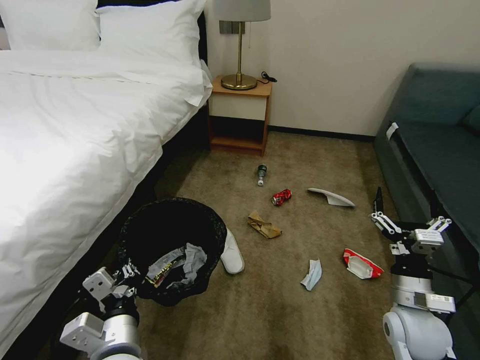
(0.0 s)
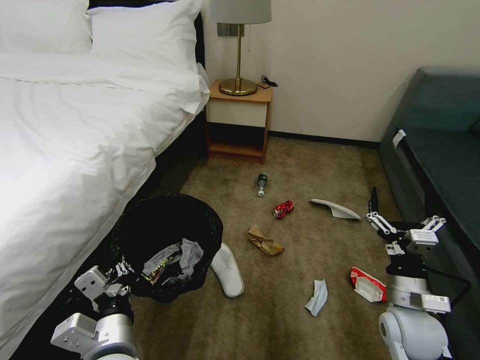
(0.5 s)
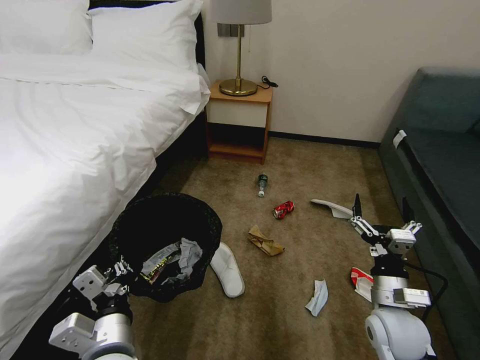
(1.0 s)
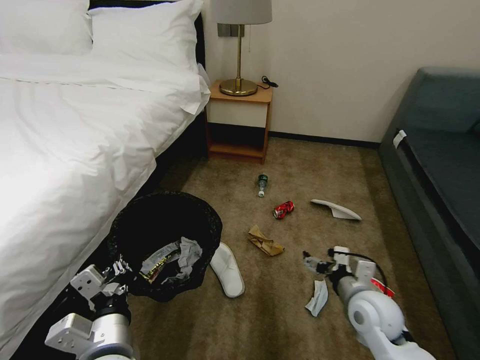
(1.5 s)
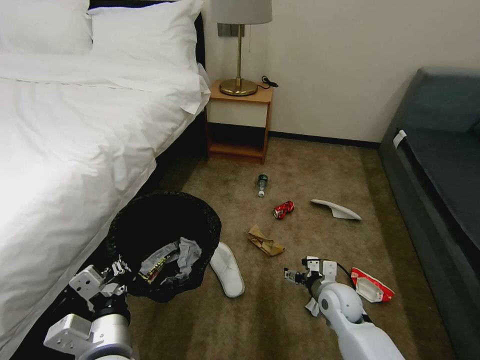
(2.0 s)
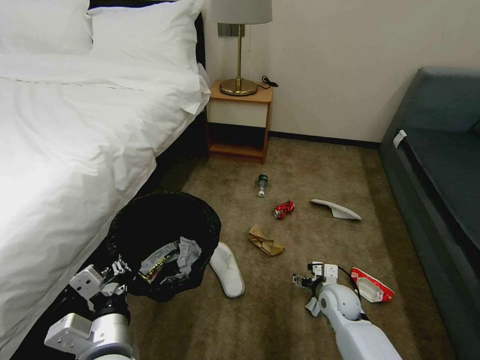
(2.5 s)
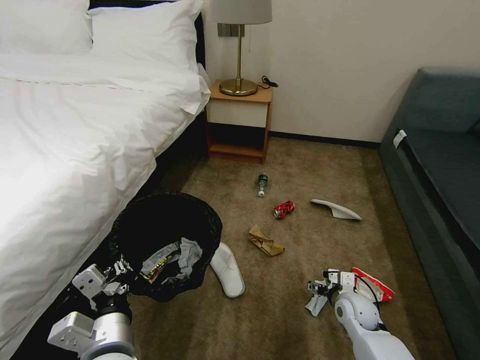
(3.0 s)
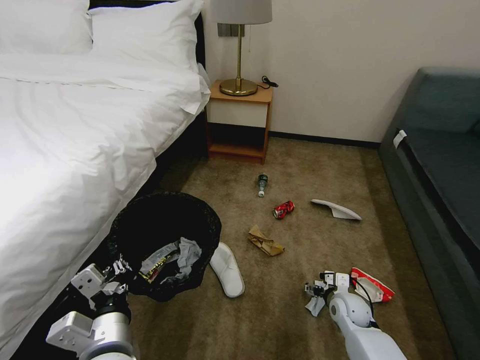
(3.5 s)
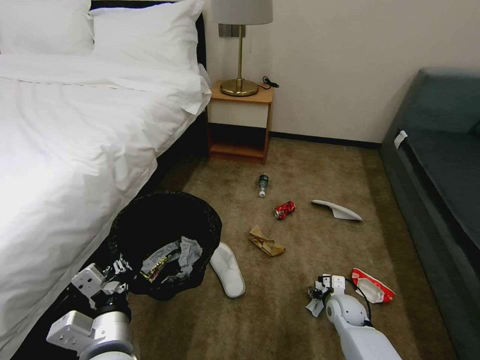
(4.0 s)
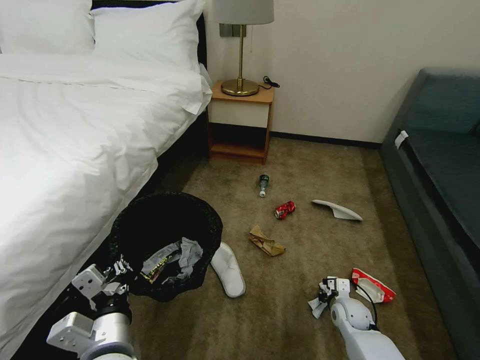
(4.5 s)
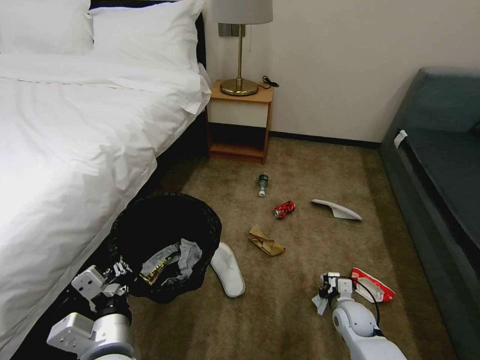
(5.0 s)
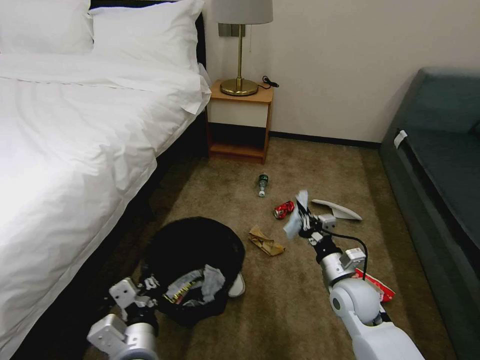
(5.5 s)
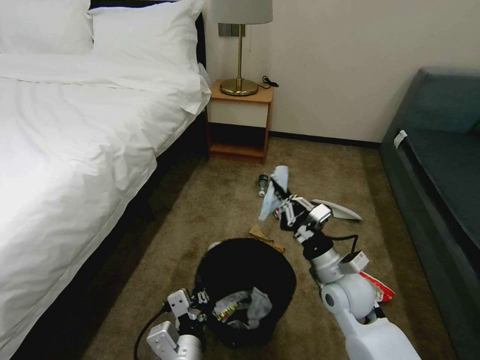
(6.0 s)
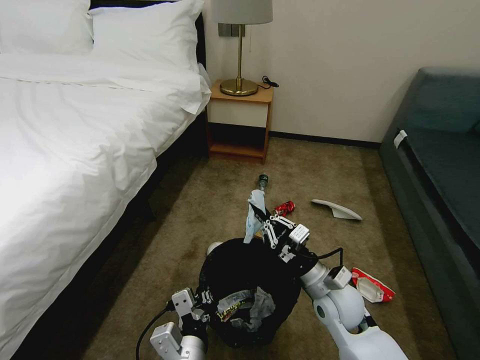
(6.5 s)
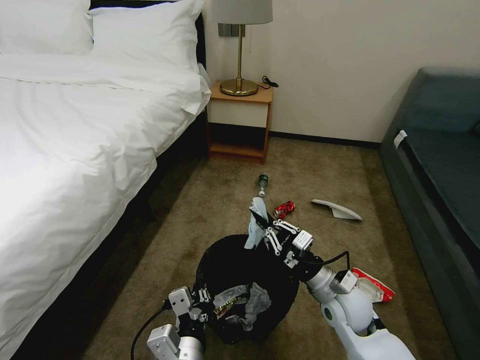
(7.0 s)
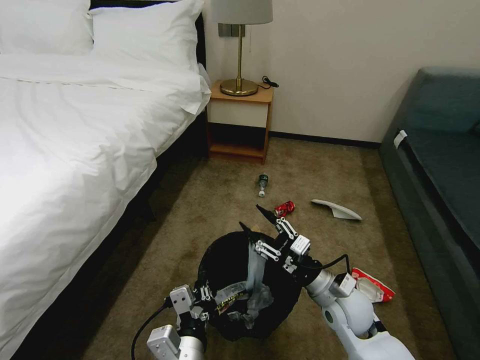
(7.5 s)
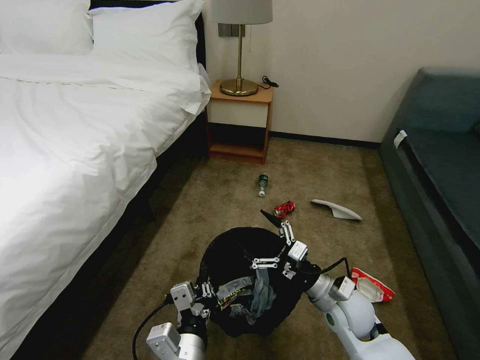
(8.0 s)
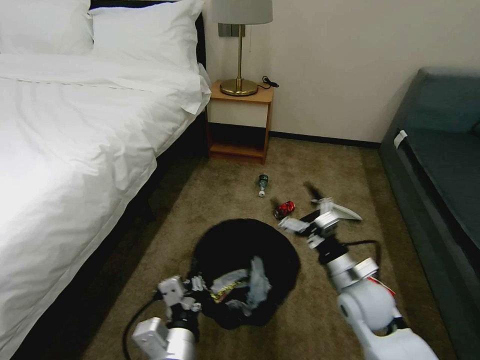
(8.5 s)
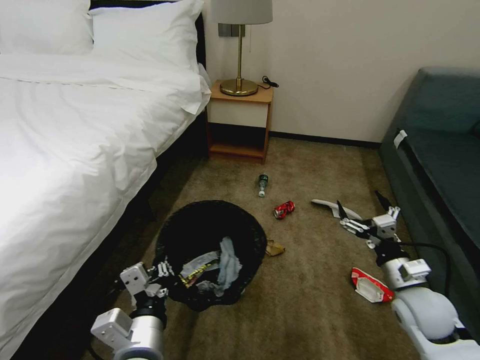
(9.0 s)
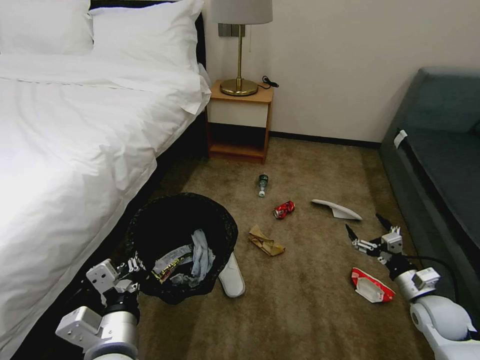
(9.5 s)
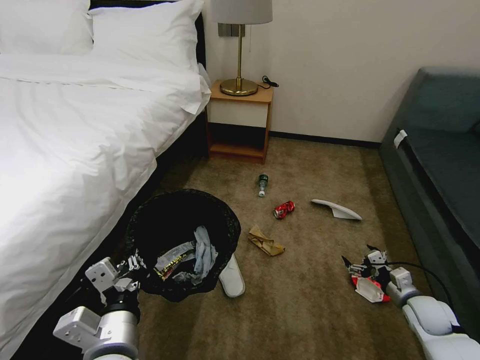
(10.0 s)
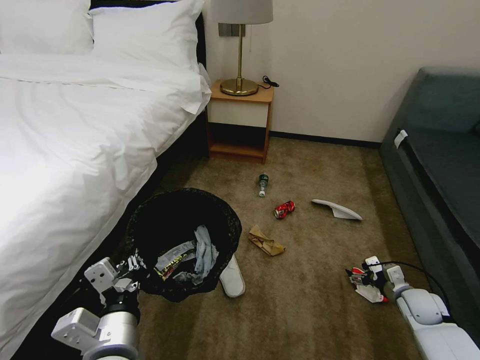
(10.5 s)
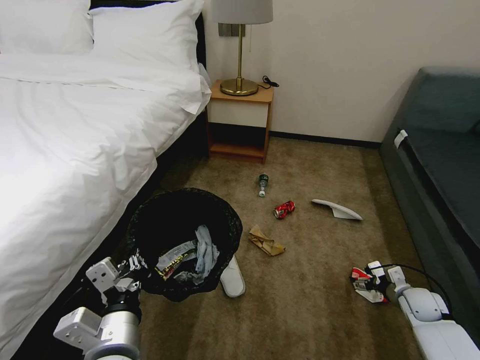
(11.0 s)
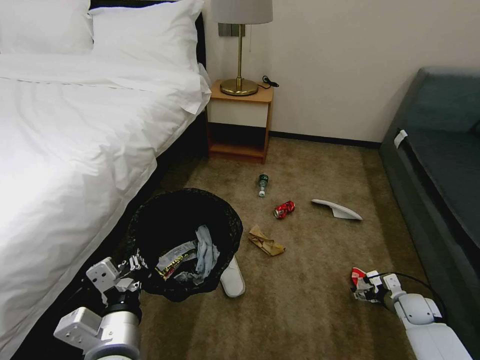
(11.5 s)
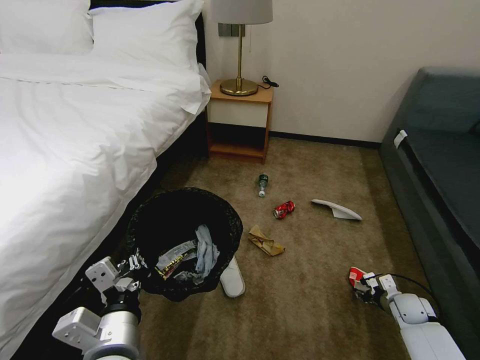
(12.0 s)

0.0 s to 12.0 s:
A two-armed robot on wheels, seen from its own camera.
Task of the whole recording: Pick up the trash bin, then pick up the garbage on the floor and place it into the trash bin.
0.0 to 2.0 s: The right gripper is displaced downward, to the left and forward by about 15 cm.
2.0 to 4.0 s: The right gripper heads downward and to the right, covering some 10 cm.
4.0 to 6.0 s: The right gripper goes about 20 cm upward, and closes. The left gripper goes roughly 10 cm to the right and downward.
6.0 to 8.0 s: The right gripper changes place by approximately 5 cm, and opens its fingers, while the left gripper closes.
8.0 to 10.0 s: The left gripper moves to the left and upward, roughly 10 cm. Meanwhile the right gripper travels to the right by approximately 25 cm.
10.0 to 12.0 s: The right gripper moves downward, about 5 cm, and closes up.

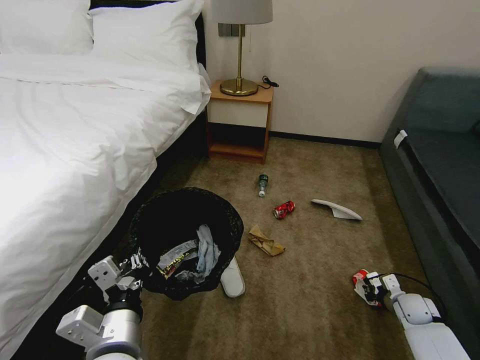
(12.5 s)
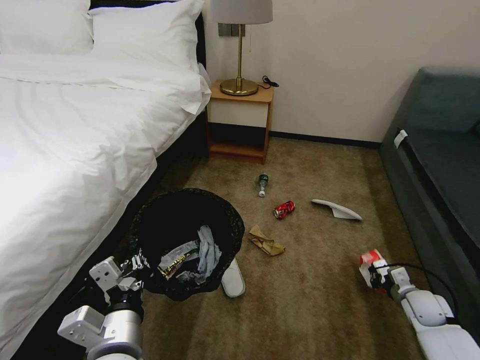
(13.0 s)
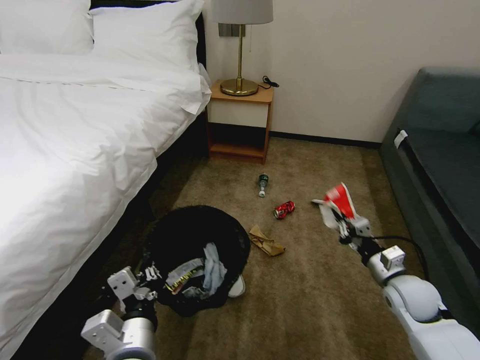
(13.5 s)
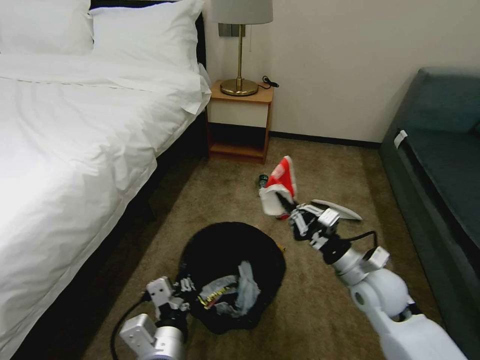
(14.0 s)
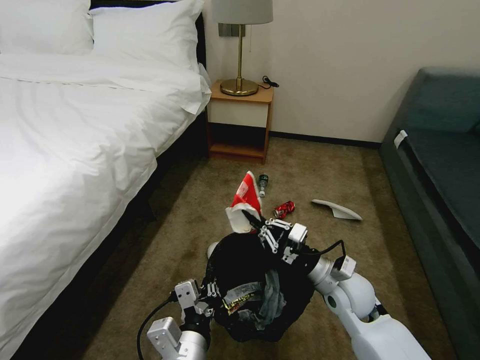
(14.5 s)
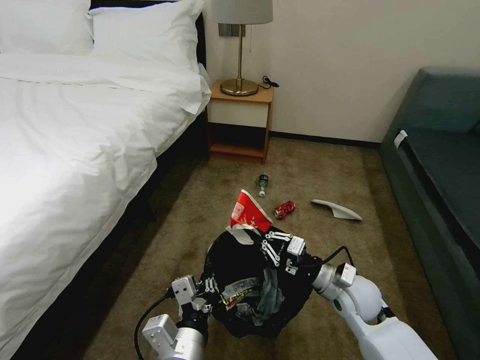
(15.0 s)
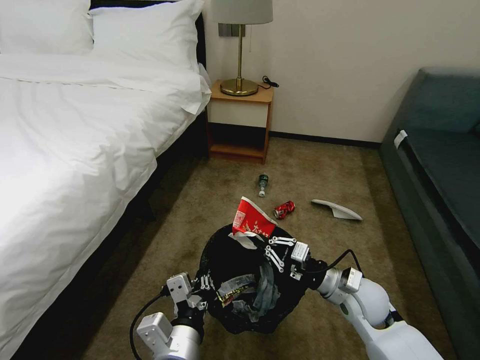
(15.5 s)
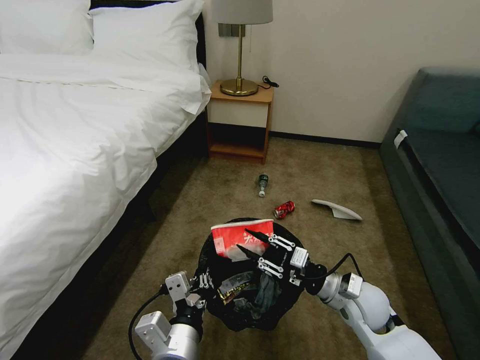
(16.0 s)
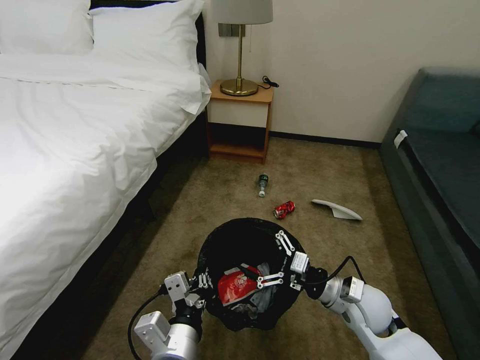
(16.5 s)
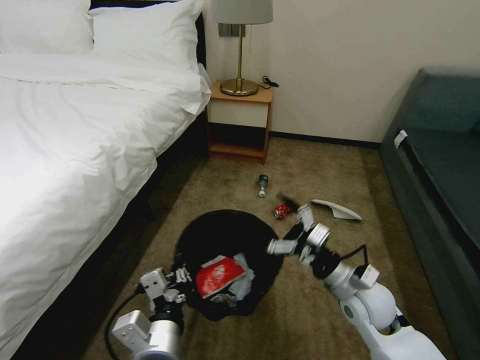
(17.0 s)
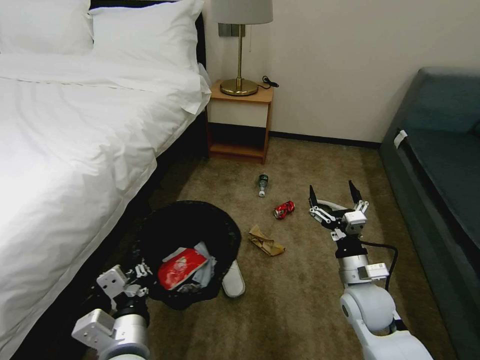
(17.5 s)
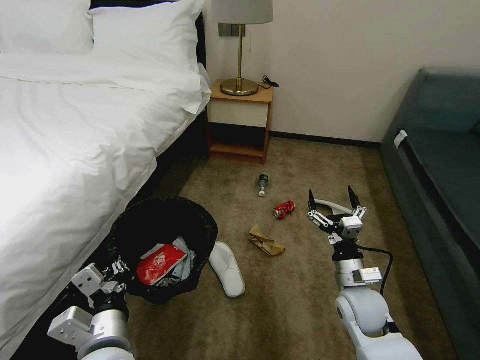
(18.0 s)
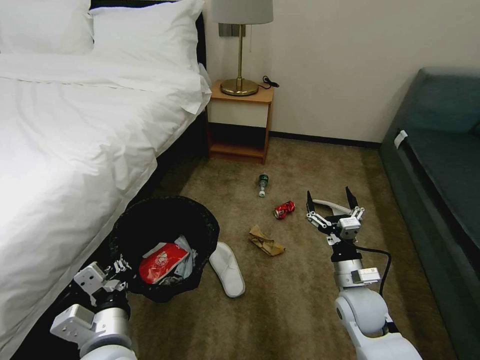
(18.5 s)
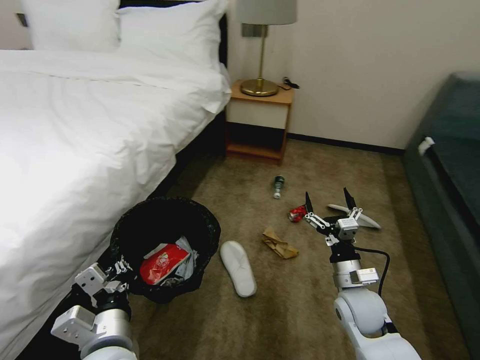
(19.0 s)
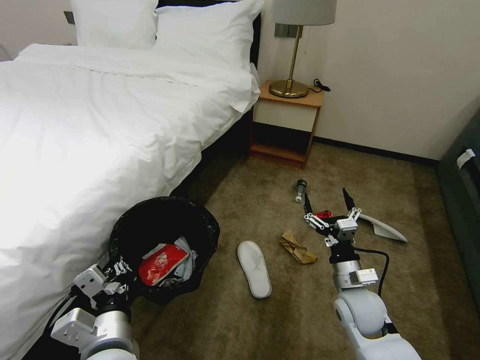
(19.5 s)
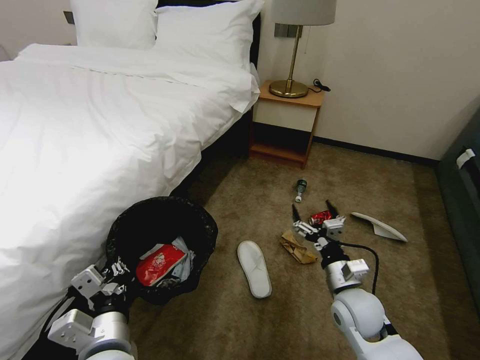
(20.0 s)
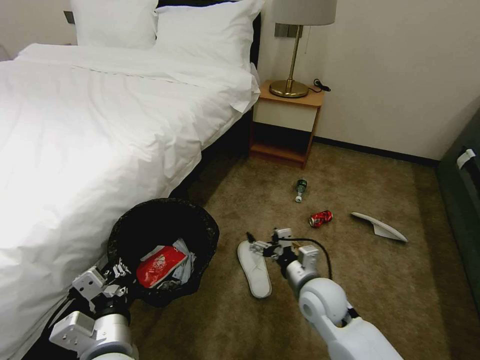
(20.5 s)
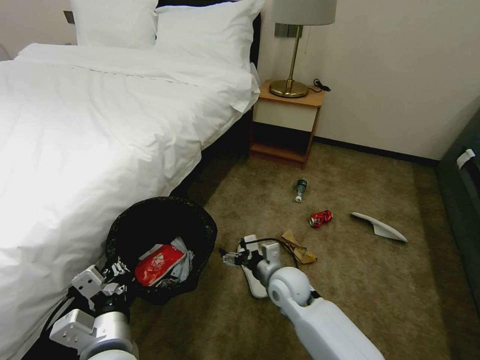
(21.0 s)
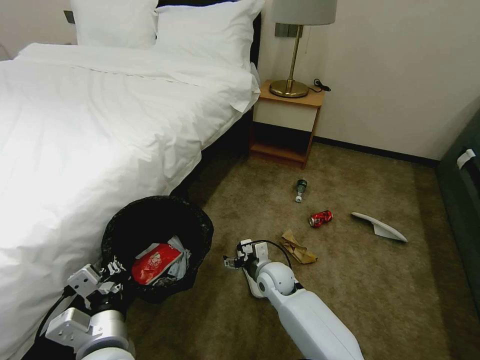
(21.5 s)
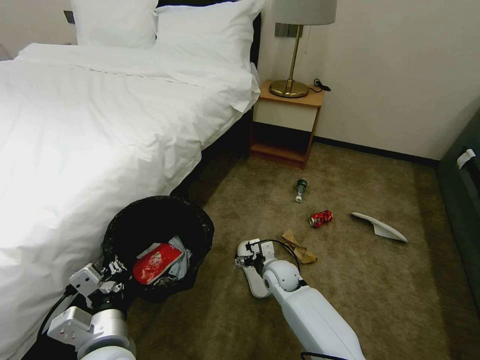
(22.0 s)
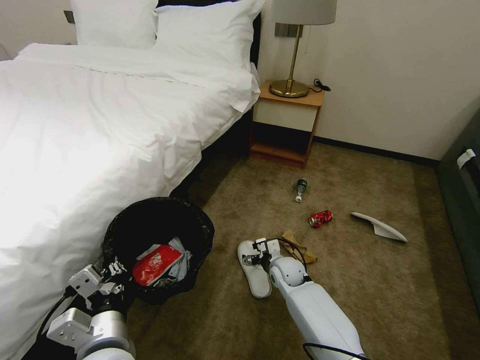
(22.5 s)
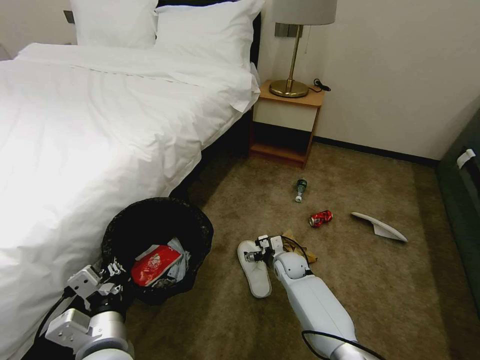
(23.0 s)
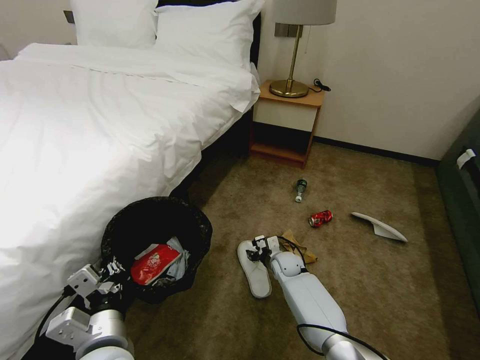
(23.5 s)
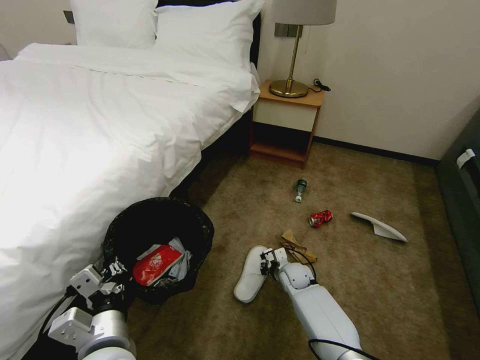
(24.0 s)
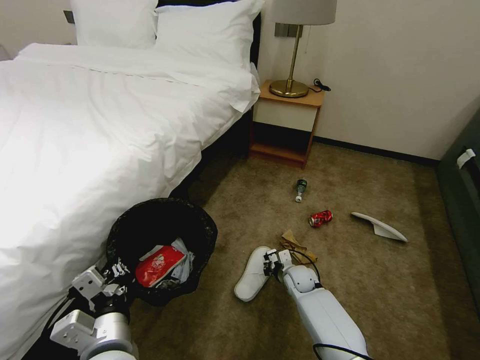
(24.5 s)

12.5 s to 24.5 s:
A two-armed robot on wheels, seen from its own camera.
Task of the whole recording: Pick up the trash bin, then pick up the garbage on the floor and place it into the trash bin.
12.5 to 14.5 s: The left gripper travels to the right by some 10 cm; the right gripper heads to the left and upward, covering about 30 cm.
14.5 to 16.5 s: The right gripper opens its fingers.
16.5 to 18.5 s: The left gripper goes roughly 10 cm to the left.
18.5 to 20.5 s: The right gripper is displaced to the left by approximately 10 cm.
20.5 to 22.5 s: The right gripper moves downward and forward, some 15 cm.
22.5 to 24.5 s: The right gripper moves to the right, roughly 5 cm, and closes up.

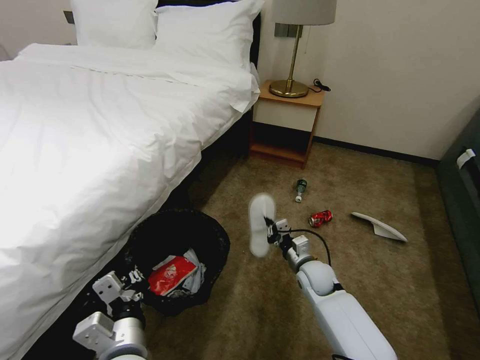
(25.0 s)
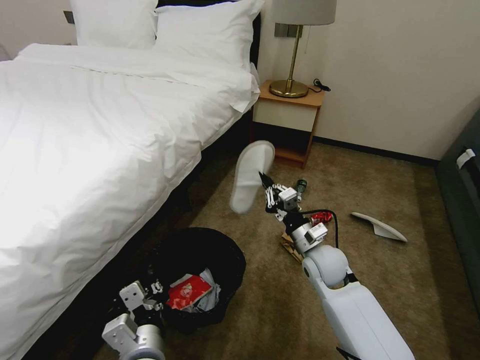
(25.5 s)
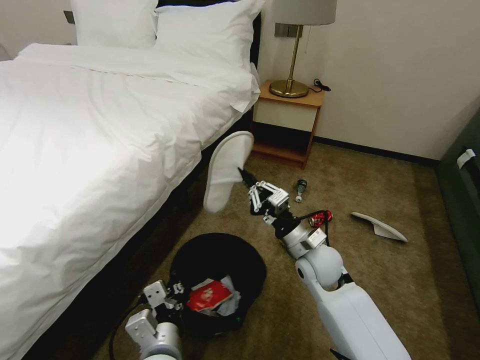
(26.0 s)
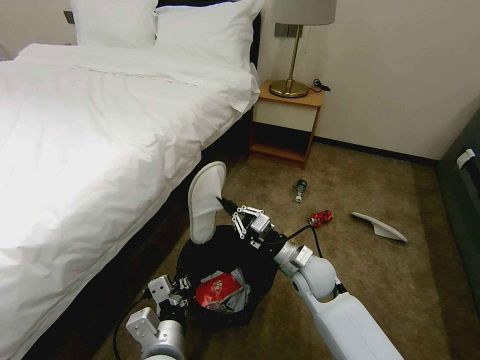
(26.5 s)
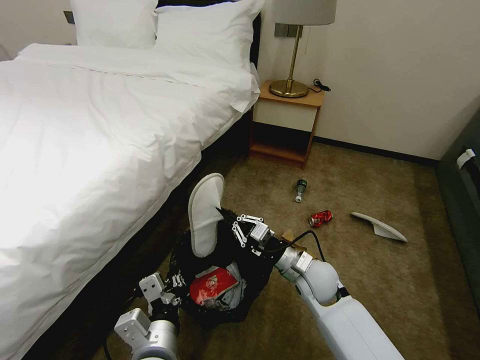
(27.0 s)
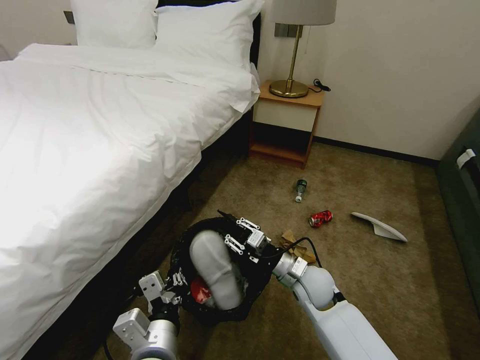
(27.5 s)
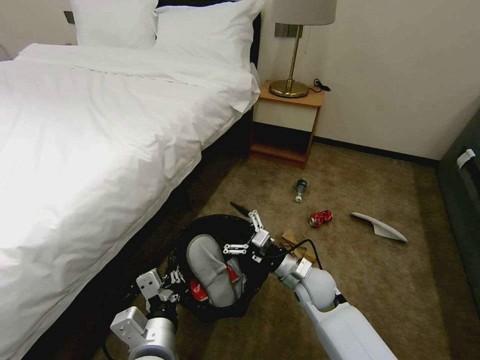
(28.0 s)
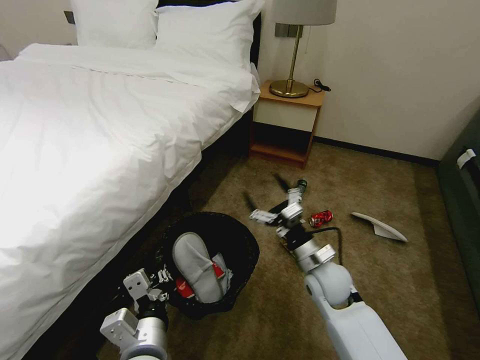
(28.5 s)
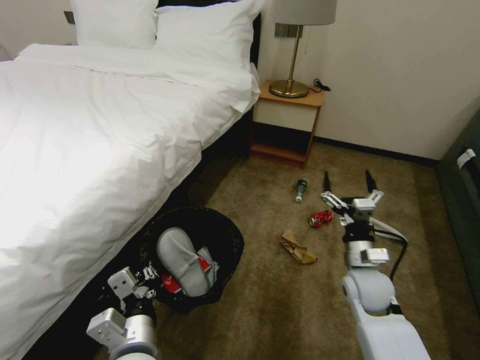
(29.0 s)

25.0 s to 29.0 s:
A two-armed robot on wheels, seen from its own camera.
Task of the whole recording: Pick up the trash bin, then pick up the garbage on the floor and place it into the trash bin.
25.0 to 27.0 s: The right gripper goes approximately 10 cm upward.
27.0 to 29.0 s: The right gripper travels to the right by roughly 10 cm, and opens up.
